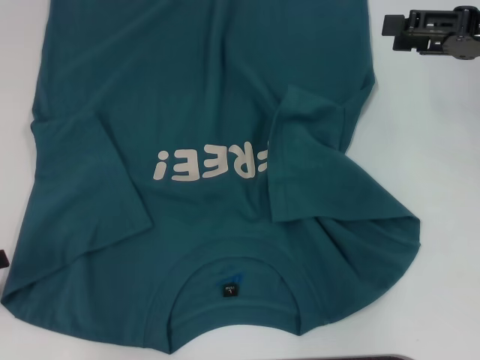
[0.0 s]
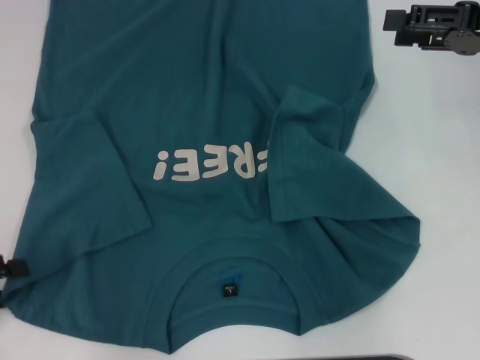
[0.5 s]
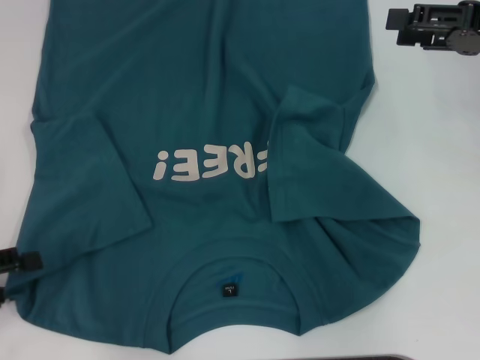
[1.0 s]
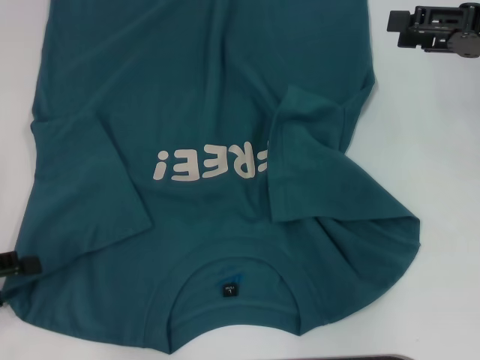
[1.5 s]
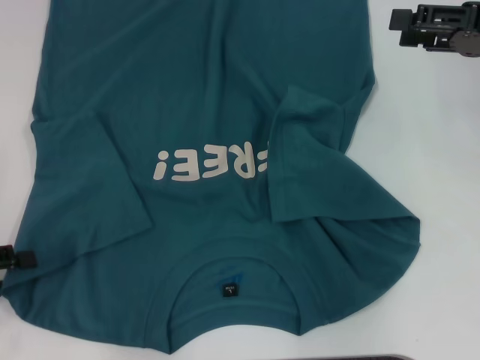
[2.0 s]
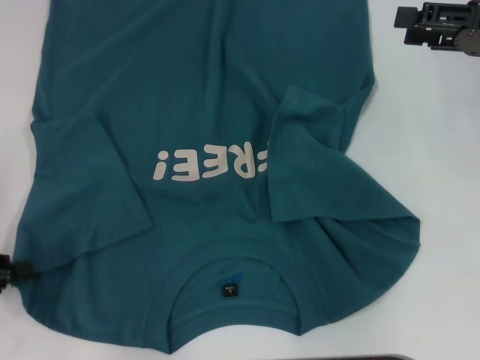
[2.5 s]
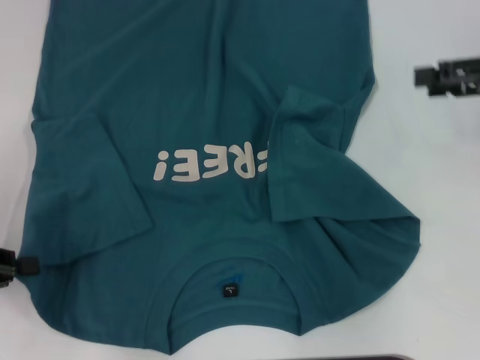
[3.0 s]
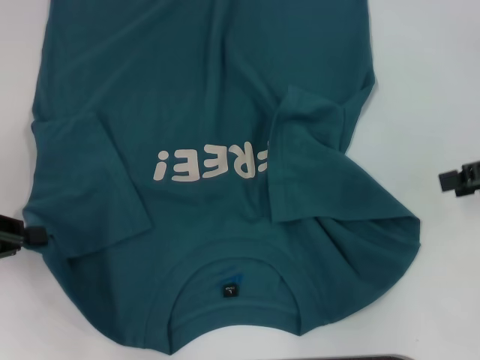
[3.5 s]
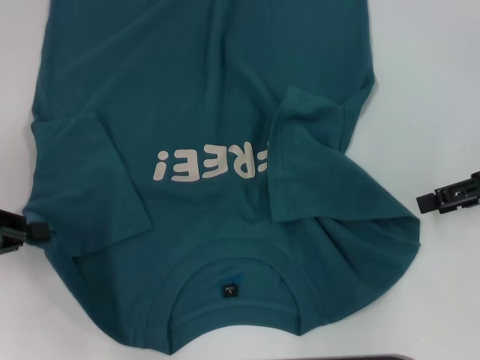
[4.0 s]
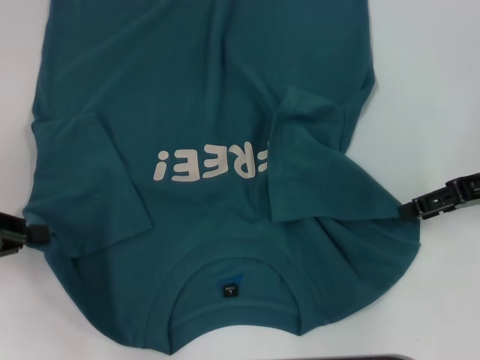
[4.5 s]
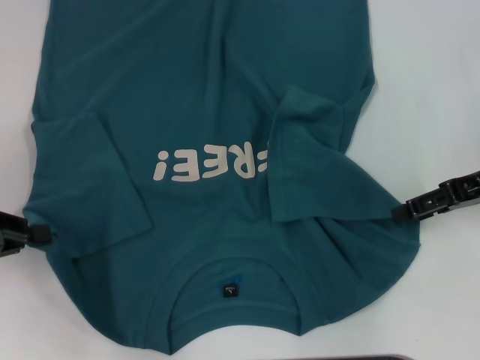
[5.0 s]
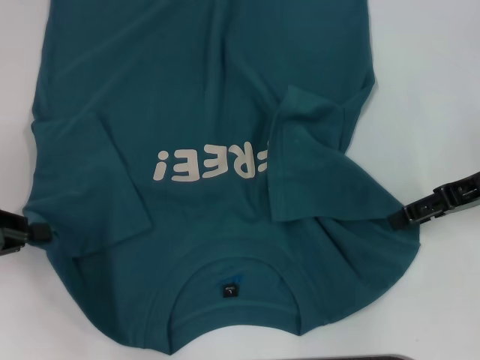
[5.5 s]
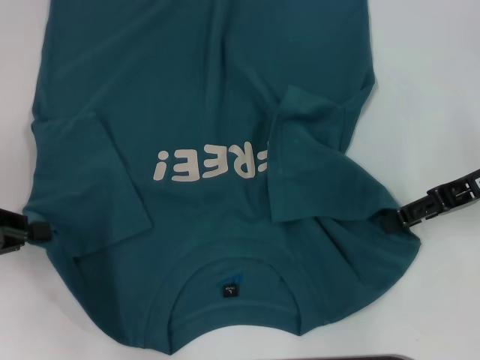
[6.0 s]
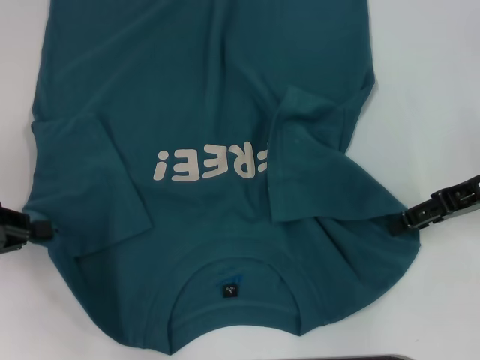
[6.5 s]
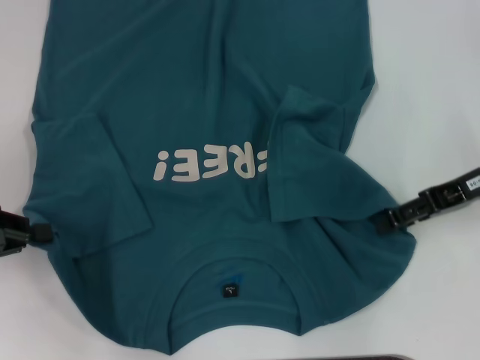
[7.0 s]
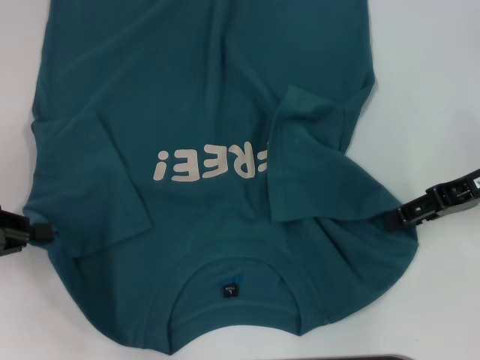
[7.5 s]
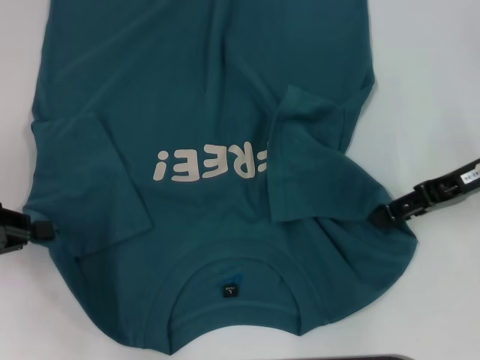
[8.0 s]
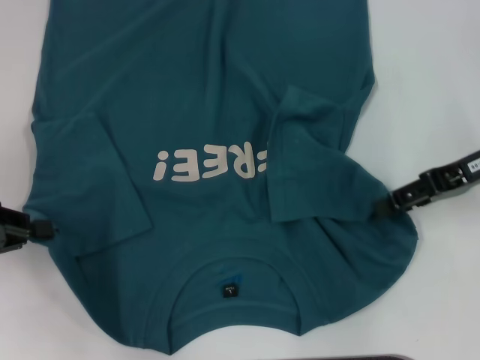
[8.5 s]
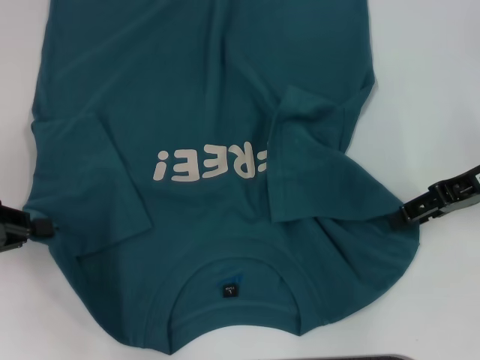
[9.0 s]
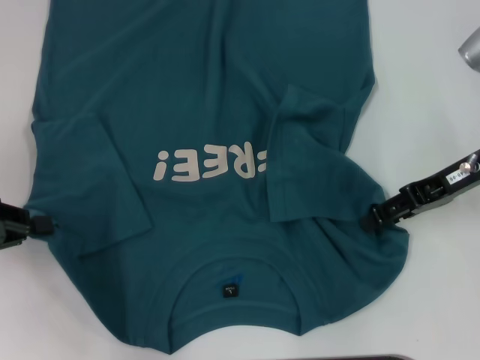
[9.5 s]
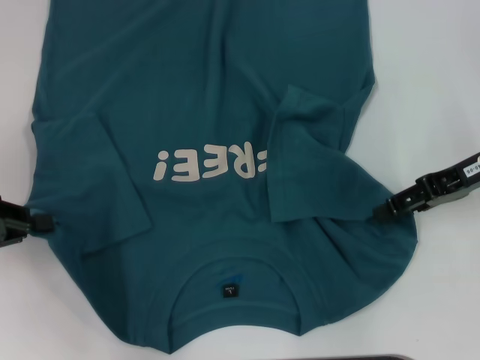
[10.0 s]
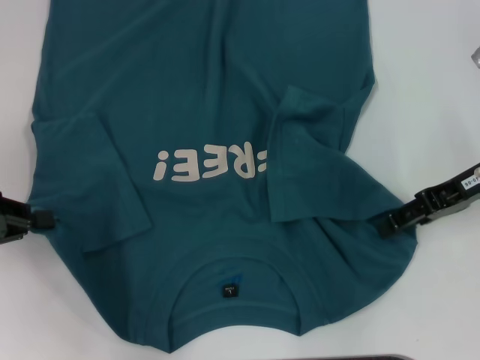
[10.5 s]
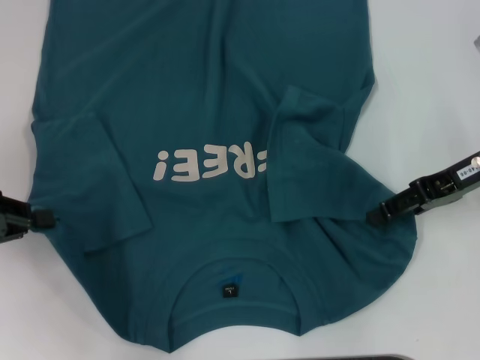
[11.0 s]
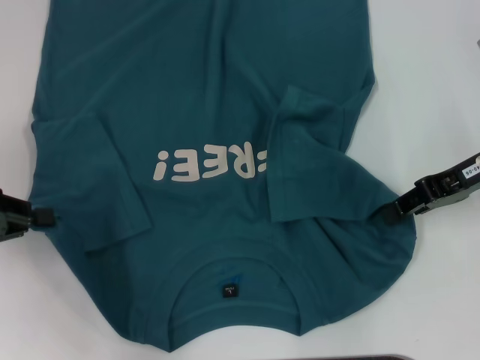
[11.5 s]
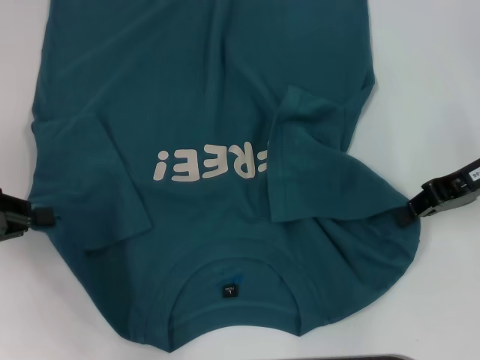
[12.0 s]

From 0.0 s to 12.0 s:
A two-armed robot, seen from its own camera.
Step, from 0.0 s to 2.5 s: Grab the bottom left corner with your left hand.
From 0.0 s to 2.0 s: The grippers make only small movements.
From 2.0 s to 4.0 s: The right gripper shifts by some 5 cm. Meanwhile the left gripper shifts by approximately 5 cm, and closes.
From 4.0 s to 6.0 s: The grippers make only small movements.
From 6.0 s to 8.0 s: Neither gripper changes place.
From 8.0 s to 10.0 s: There are only small adjustments of the grippers.
From 10.0 s to 12.0 s: The right gripper closes.

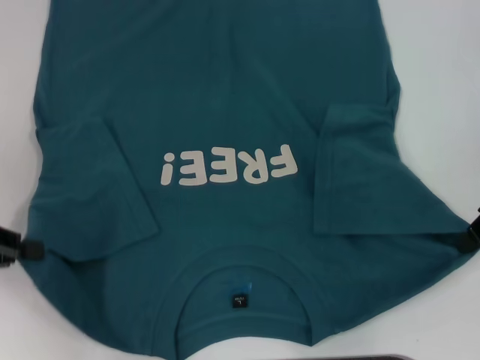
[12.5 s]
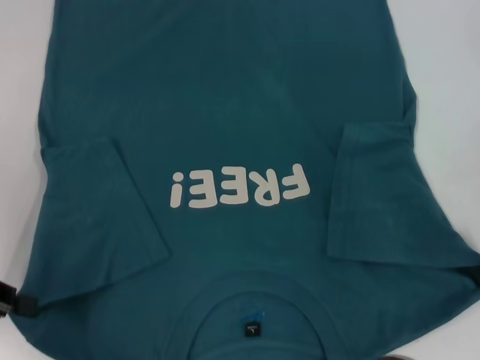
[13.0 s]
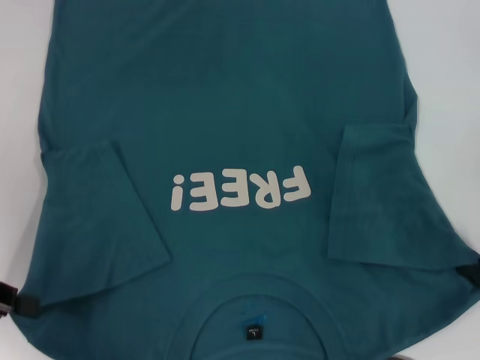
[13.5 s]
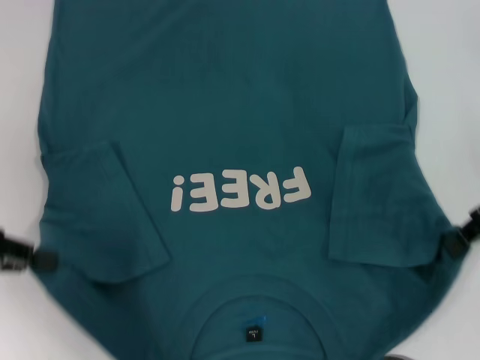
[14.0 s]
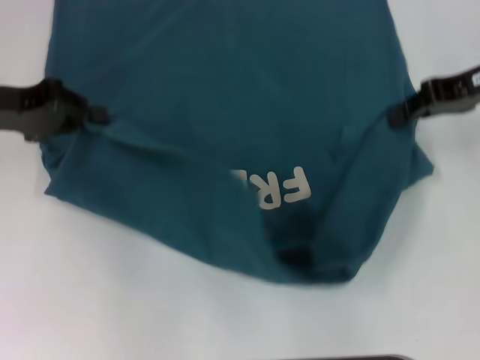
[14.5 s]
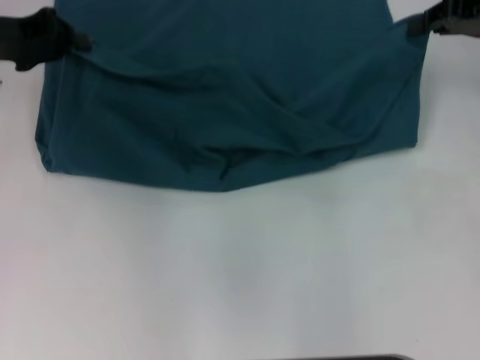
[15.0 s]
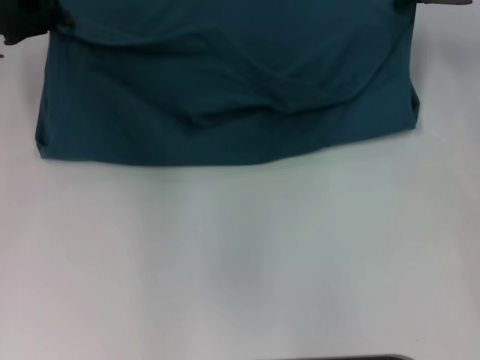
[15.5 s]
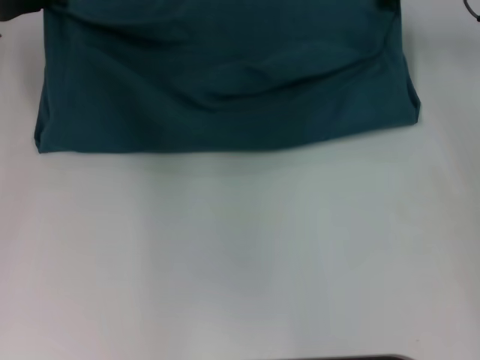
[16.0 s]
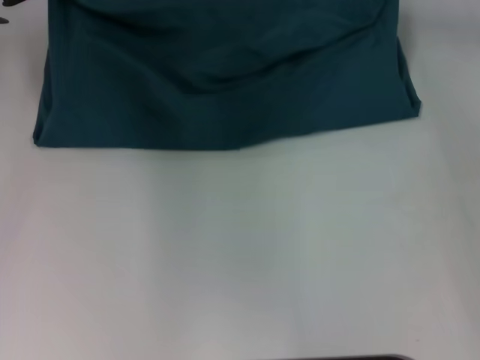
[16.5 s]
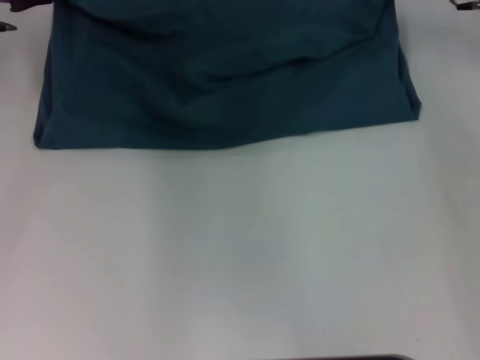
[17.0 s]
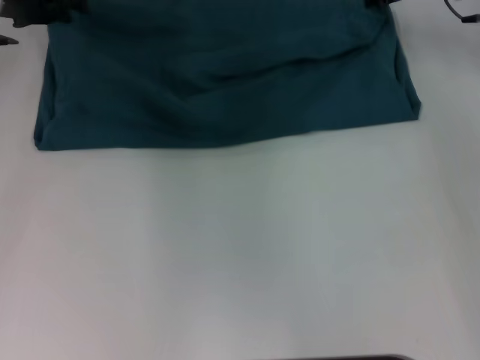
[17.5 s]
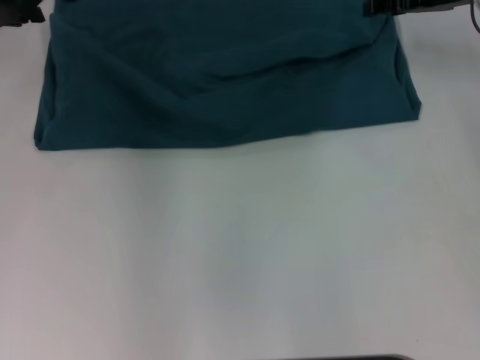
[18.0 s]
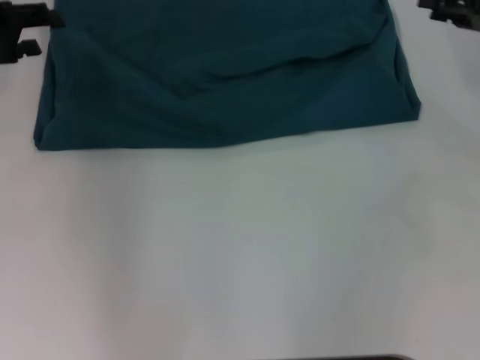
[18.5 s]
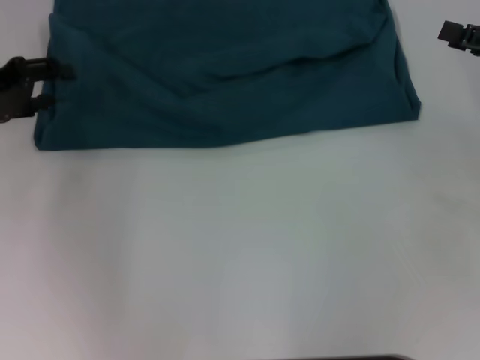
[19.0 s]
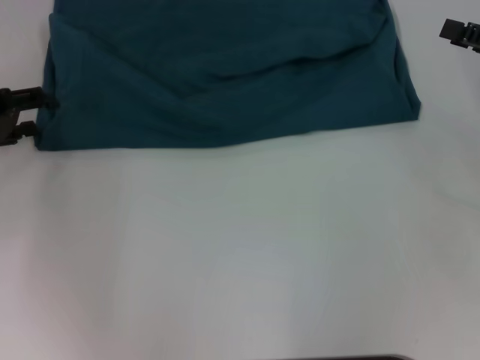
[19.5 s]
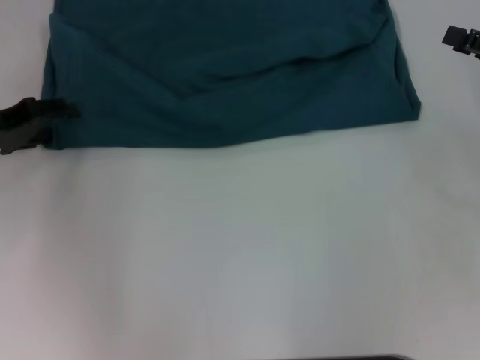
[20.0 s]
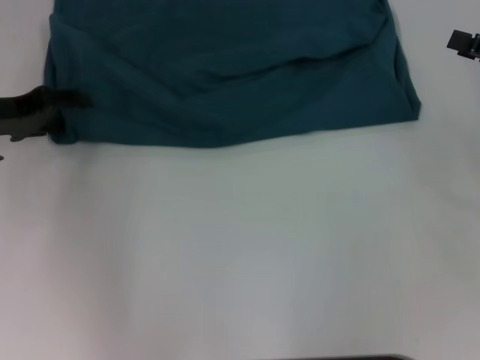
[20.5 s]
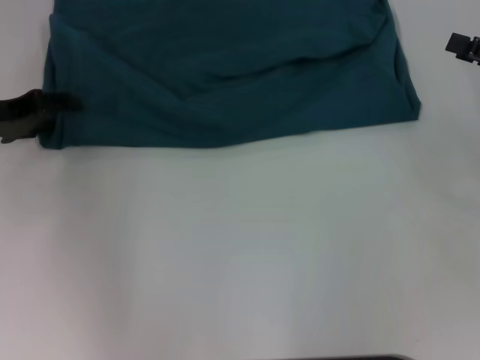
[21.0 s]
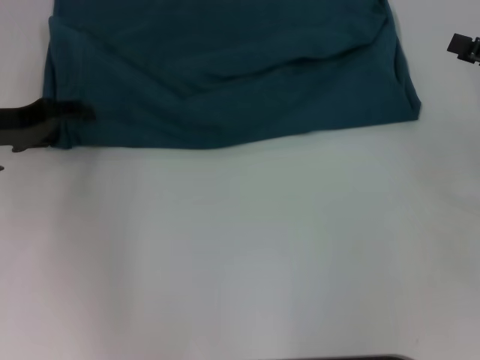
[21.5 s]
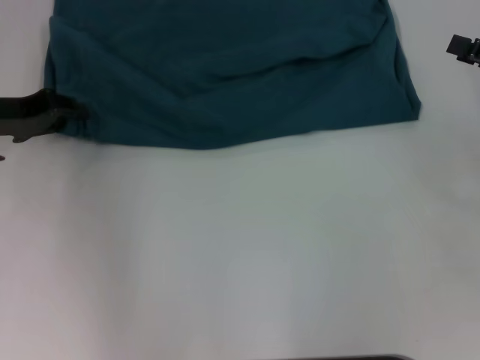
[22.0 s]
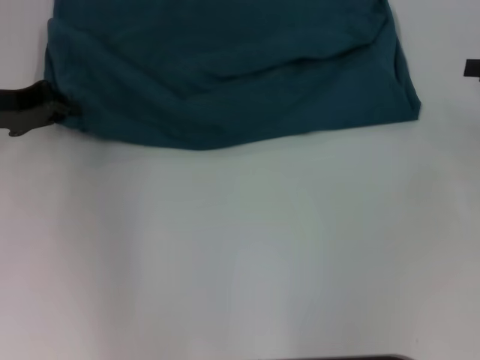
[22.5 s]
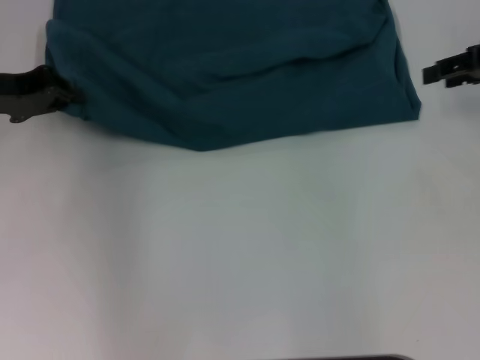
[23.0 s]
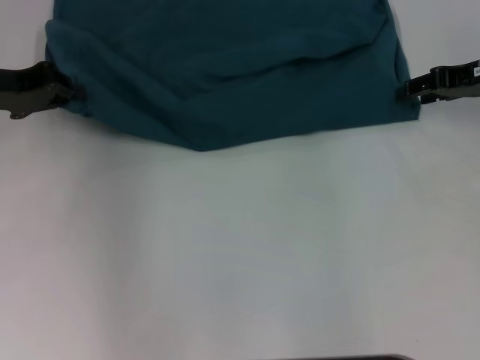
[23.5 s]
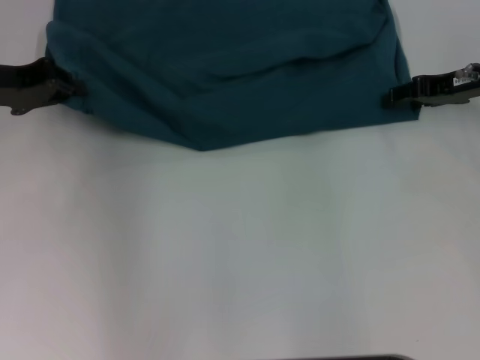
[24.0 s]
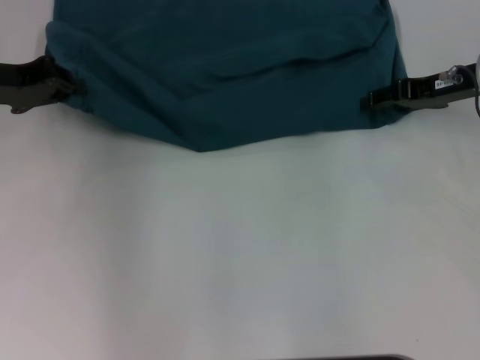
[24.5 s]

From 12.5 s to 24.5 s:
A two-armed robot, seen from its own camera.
Step, from 12.5 s to 18.0 s: Fold the clothes to the left.
Step, from 12.5 s to 18.0 s: Fold the clothes to the right.
From 12.5 s to 14.5 s: The left gripper goes some 10 cm forward and to the right; the right gripper moves forward, about 5 cm.
From 14.5 s to 16.5 s: The left gripper moves forward, some 10 cm, while the right gripper heads forward and to the left, covering approximately 10 cm.
From 16.5 s to 18.5 s: The left gripper goes roughly 10 cm backward and to the left, and opens its fingers. Meanwhile the right gripper is displaced backward and to the right by roughly 15 cm, and opens its fingers.
From 18.5 s to 20.5 s: The left gripper moves downward, about 5 cm. The right gripper moves approximately 5 cm.
From 20.5 s to 22.5 s: The left gripper closes.
From 22.5 s to 24.5 s: The right gripper goes about 15 cm to the left and forward.

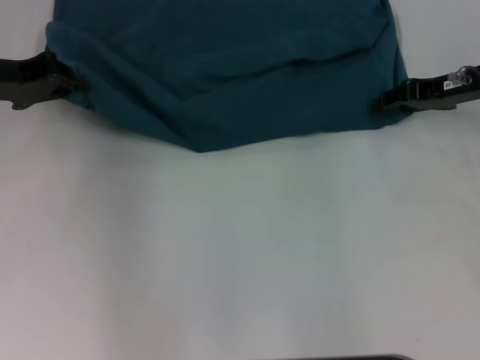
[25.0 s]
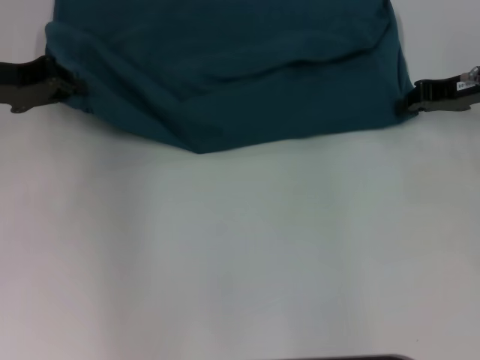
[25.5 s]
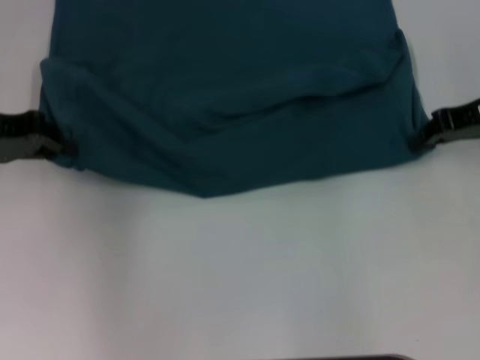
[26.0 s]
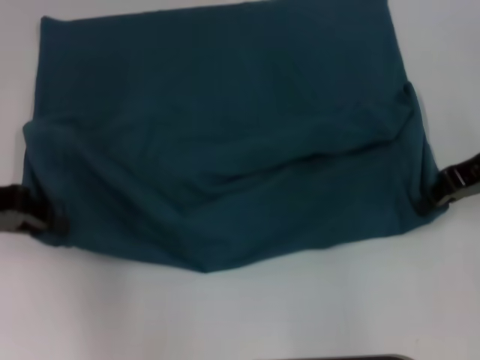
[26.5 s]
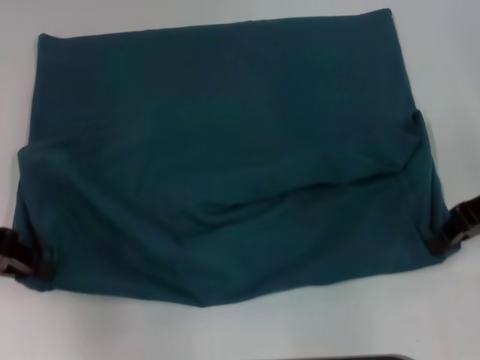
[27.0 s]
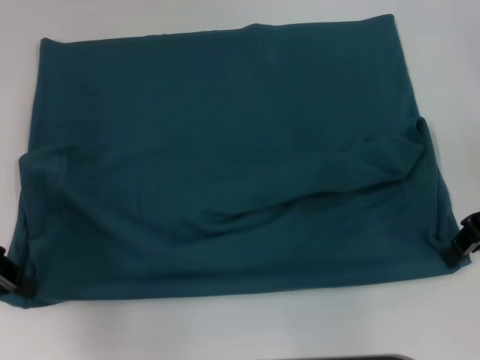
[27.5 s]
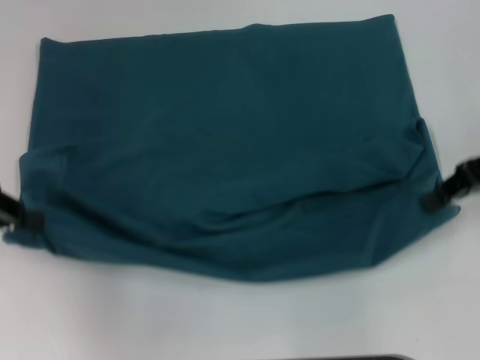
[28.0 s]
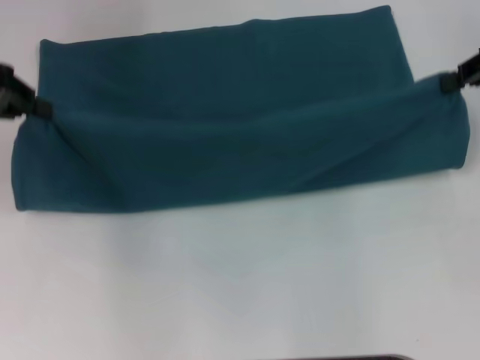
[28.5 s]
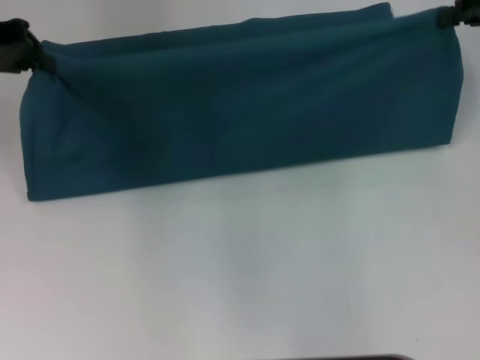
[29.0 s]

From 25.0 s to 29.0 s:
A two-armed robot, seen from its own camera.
Step, from 25.0 s to 27.5 s: Pull the clothes with your left hand.
Step, from 25.0 s to 27.5 s: Pull the clothes with your right hand.
From 25.0 s to 27.0 s: Both grippers travel together backward, approximately 10 cm. The right gripper closes up.
From 27.0 s to 29.0 s: The grippers both shift forward and upward by approximately 15 cm.
